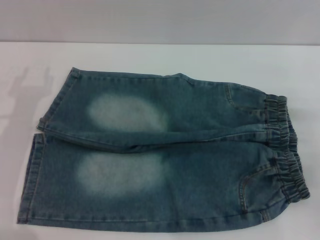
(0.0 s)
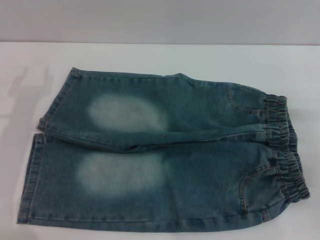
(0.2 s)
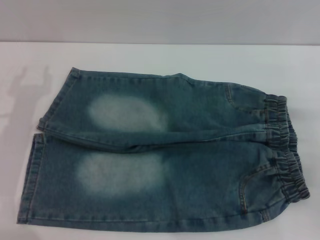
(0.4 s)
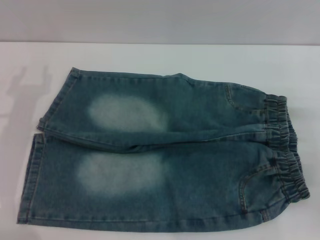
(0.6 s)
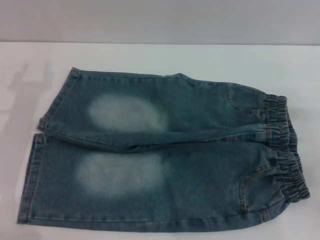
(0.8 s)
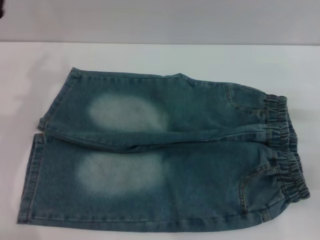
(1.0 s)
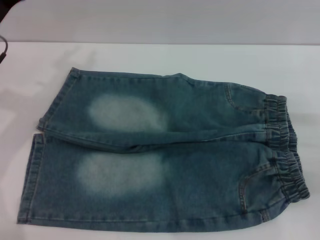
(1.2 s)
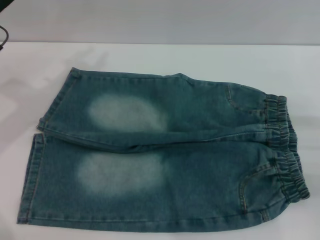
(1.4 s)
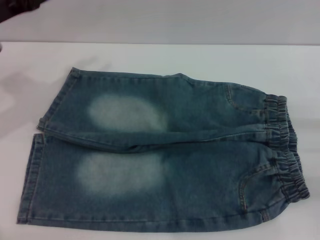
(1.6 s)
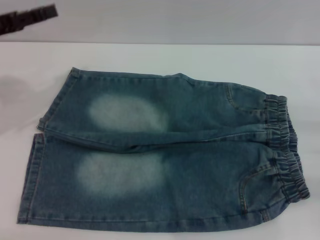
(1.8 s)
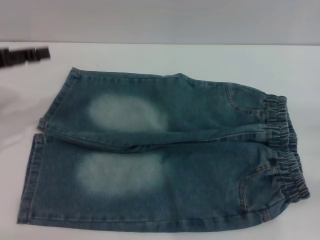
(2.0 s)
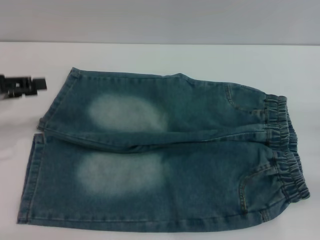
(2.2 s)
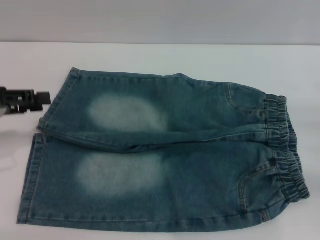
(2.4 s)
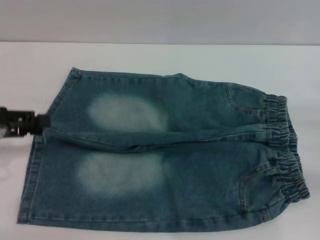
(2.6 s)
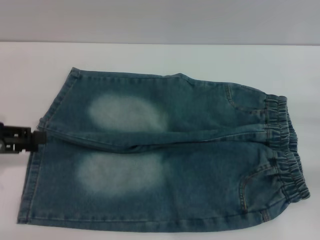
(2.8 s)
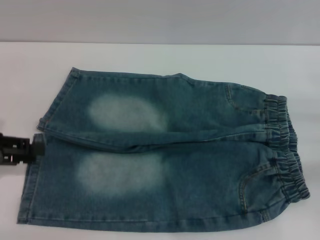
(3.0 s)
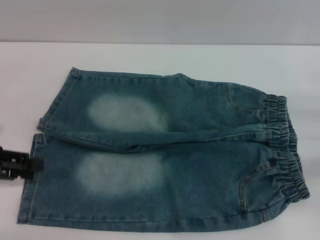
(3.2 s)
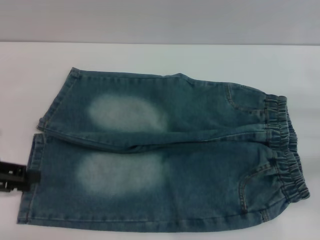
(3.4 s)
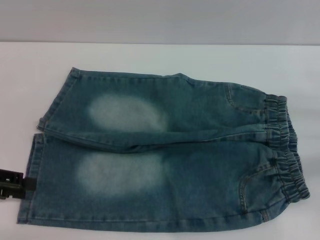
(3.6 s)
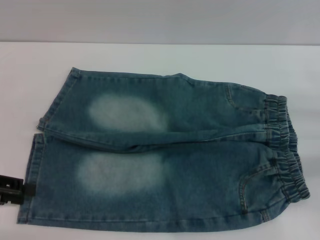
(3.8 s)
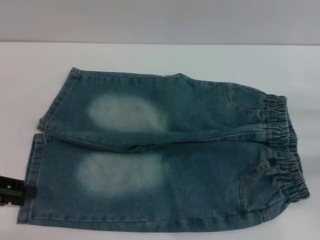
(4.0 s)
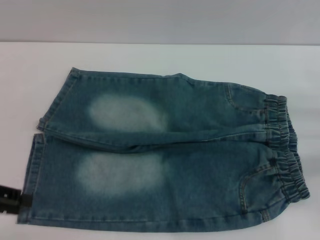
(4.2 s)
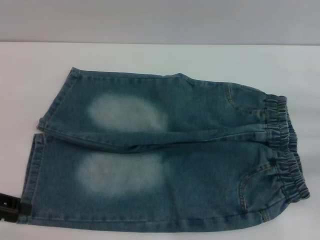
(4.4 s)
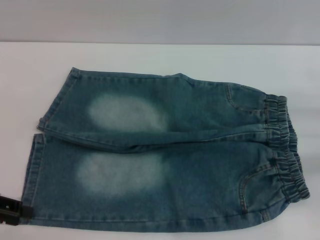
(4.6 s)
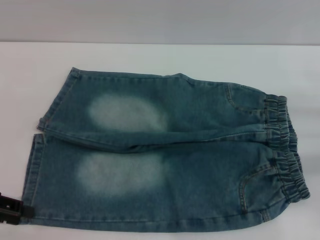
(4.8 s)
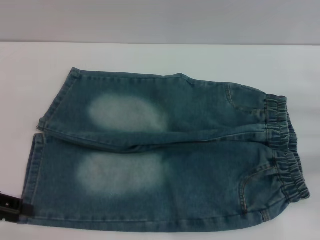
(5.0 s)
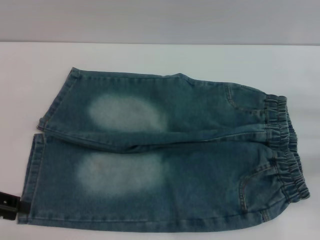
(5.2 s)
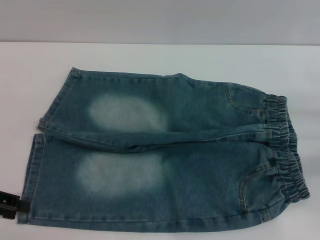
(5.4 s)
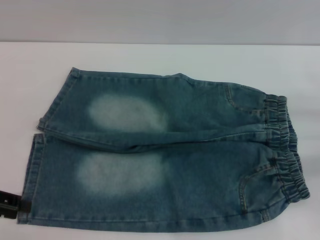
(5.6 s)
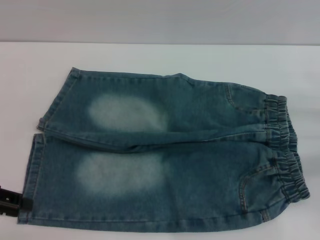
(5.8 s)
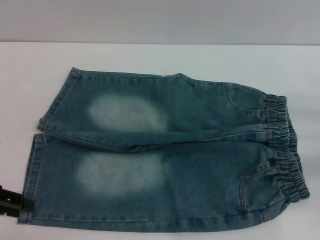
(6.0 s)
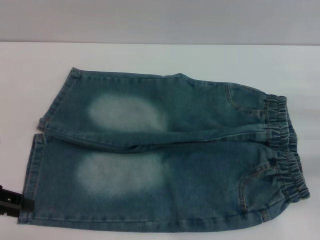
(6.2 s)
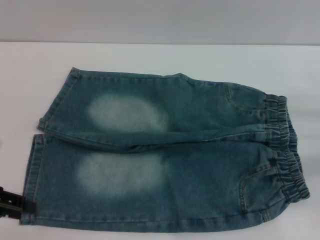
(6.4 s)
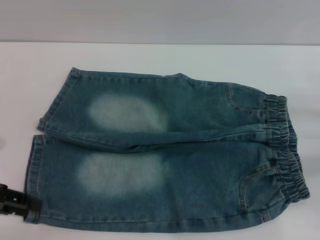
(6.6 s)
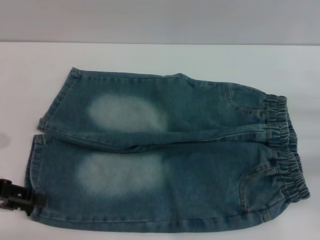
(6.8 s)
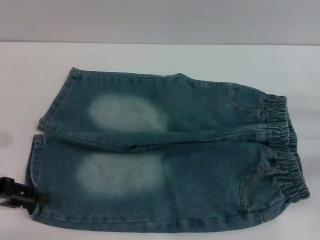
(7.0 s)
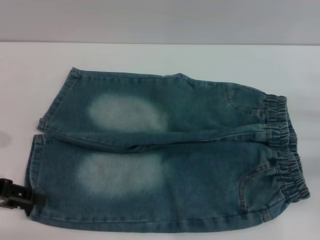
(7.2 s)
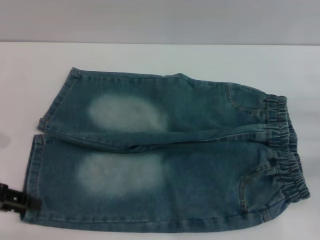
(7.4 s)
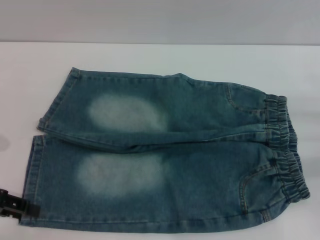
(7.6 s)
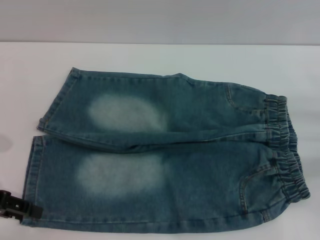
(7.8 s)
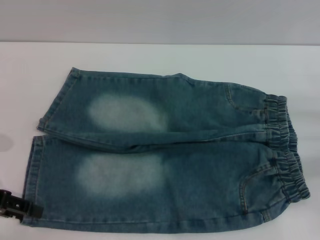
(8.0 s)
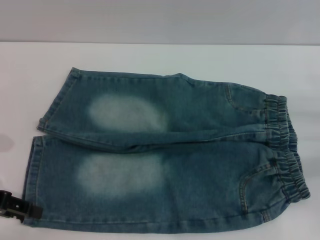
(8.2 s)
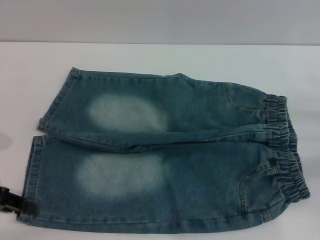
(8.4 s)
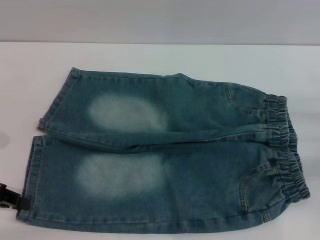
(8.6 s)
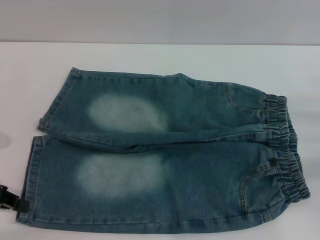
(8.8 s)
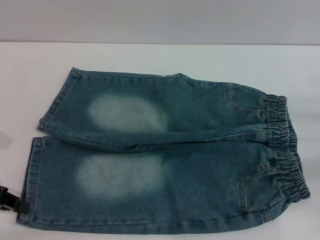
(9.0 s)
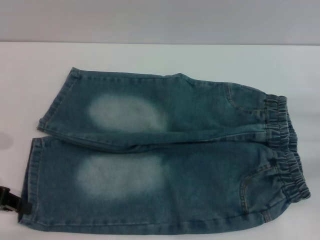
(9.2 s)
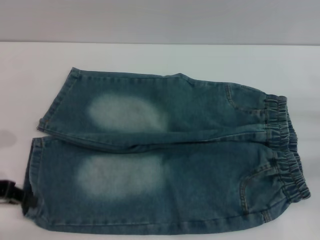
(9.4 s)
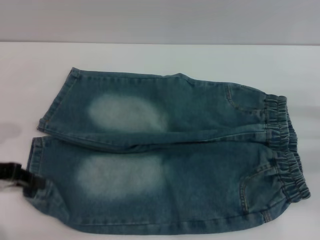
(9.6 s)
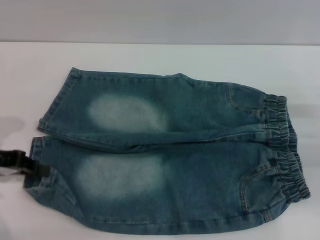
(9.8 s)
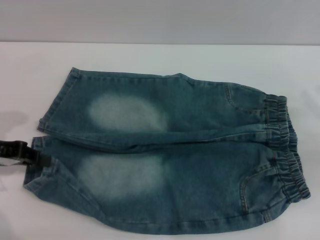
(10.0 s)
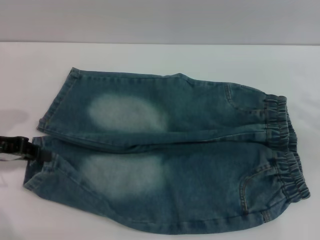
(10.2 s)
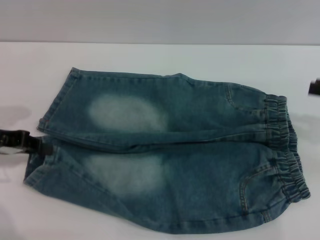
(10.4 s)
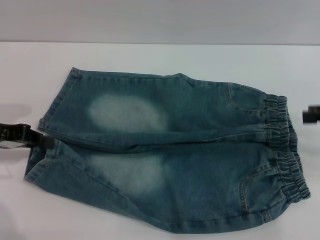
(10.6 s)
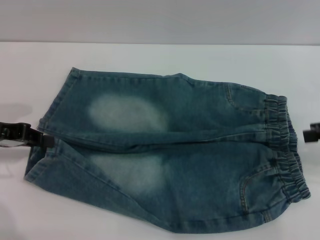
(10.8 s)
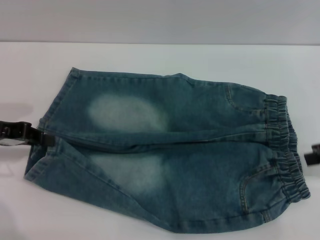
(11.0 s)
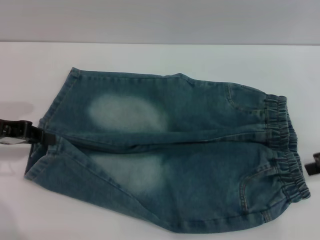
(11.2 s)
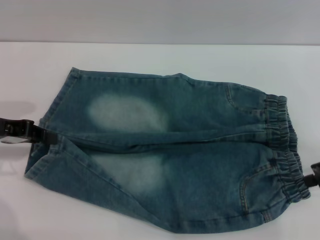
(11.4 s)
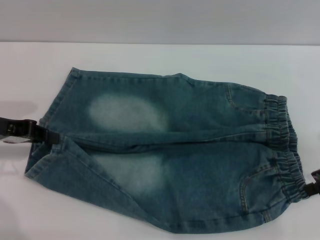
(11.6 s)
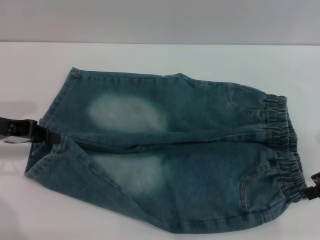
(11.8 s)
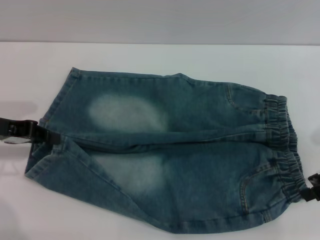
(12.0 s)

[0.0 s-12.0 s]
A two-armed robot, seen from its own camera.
0.0 to 1.6 s: The left gripper goes approximately 10 cm upward and forward.
1.6 to 3.0 s: The left gripper shifts some 10 cm backward and to the left.
3.0 to 4.4 s: There are only small adjustments of the grippers.
4.4 to 6.0 s: Neither gripper changes place.
6.0 to 7.6 s: The grippers stay close to where they were, moving slightly.
7.6 to 9.0 s: The left gripper closes up.
9.0 to 10.4 s: The right gripper shifts roughly 10 cm upward, while the left gripper shifts by roughly 5 cm.
10.4 to 12.0 s: The right gripper ends up roughly 5 cm from where it was.

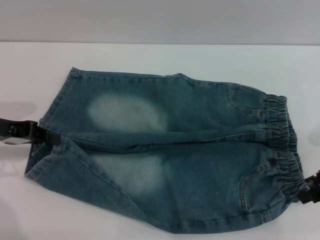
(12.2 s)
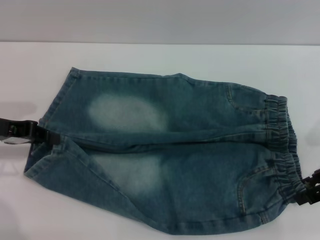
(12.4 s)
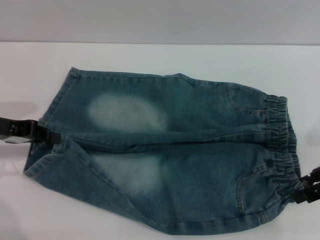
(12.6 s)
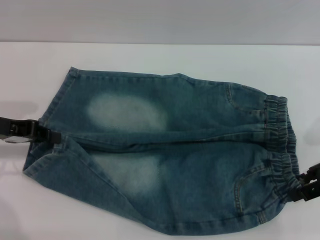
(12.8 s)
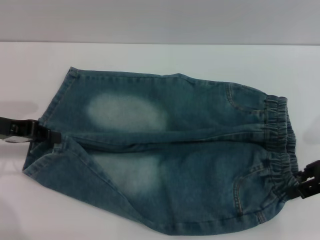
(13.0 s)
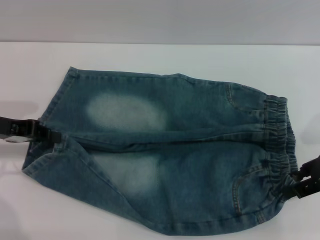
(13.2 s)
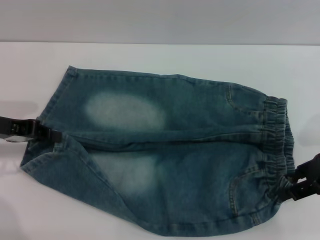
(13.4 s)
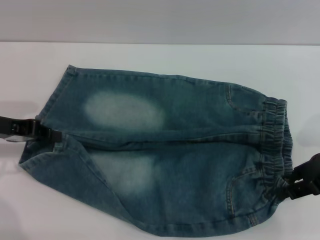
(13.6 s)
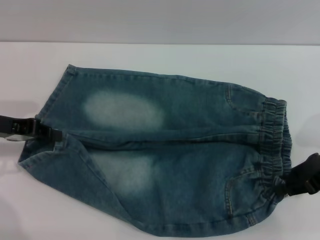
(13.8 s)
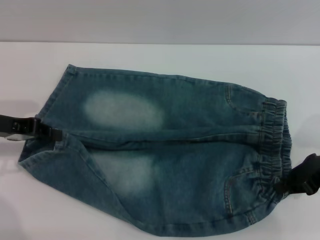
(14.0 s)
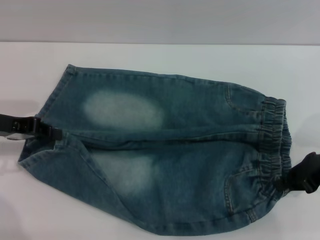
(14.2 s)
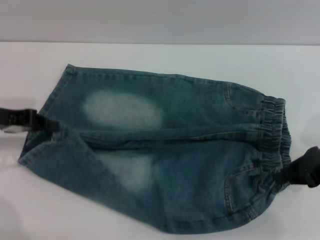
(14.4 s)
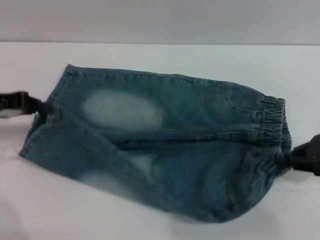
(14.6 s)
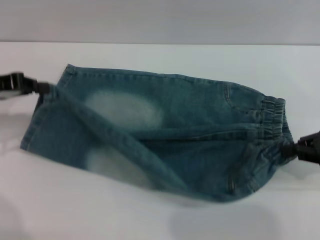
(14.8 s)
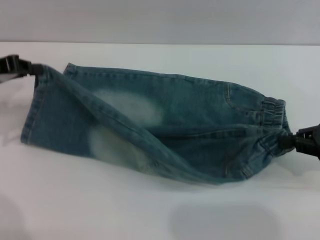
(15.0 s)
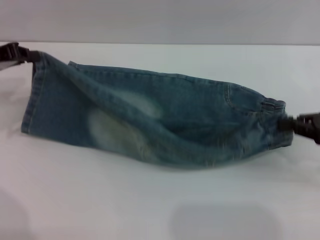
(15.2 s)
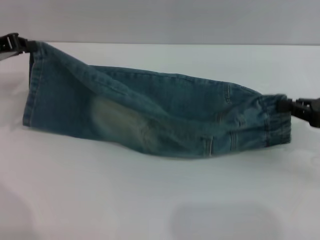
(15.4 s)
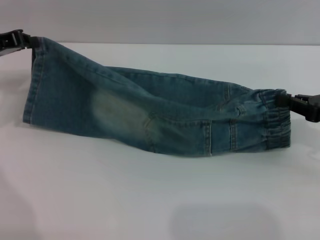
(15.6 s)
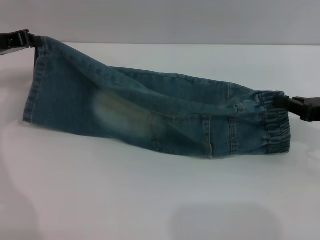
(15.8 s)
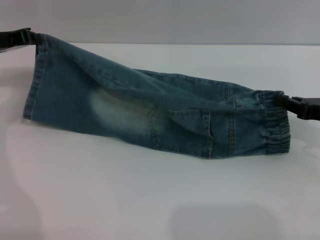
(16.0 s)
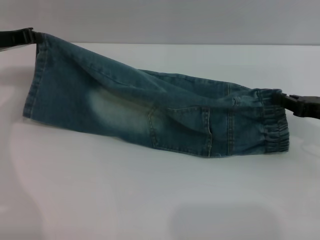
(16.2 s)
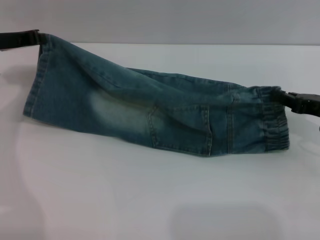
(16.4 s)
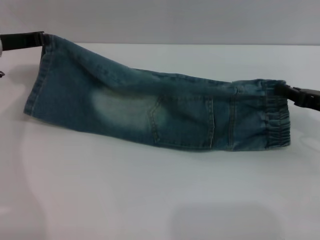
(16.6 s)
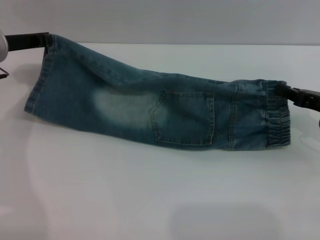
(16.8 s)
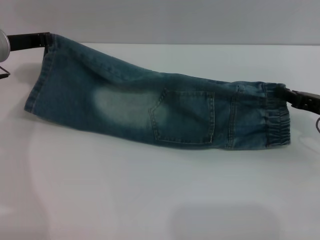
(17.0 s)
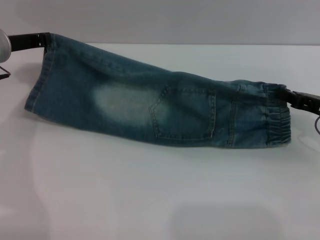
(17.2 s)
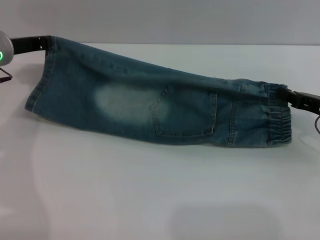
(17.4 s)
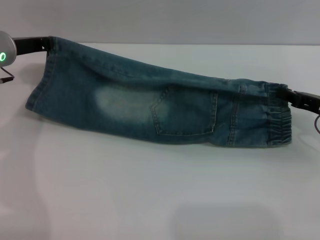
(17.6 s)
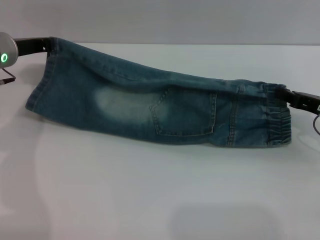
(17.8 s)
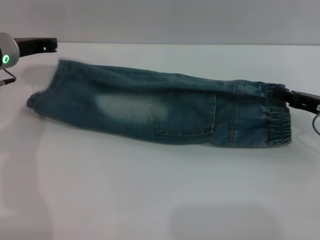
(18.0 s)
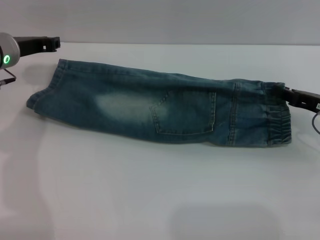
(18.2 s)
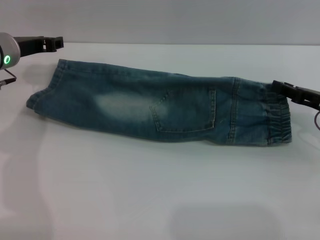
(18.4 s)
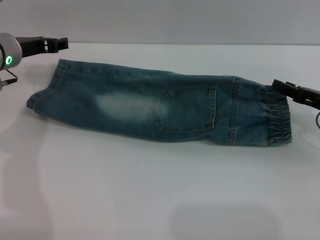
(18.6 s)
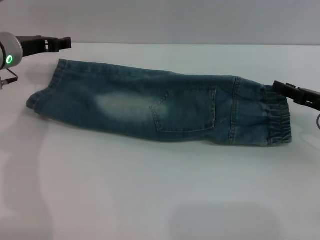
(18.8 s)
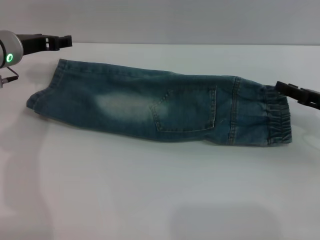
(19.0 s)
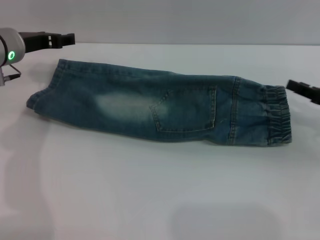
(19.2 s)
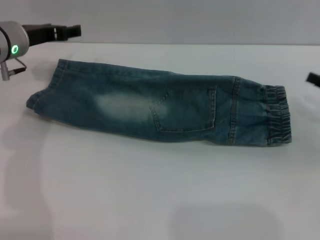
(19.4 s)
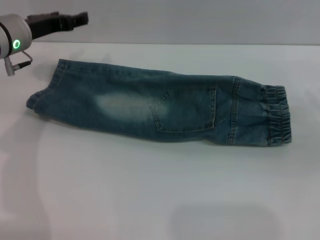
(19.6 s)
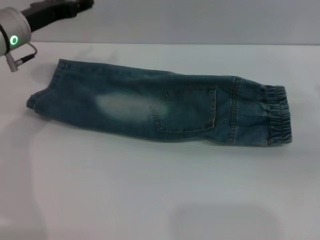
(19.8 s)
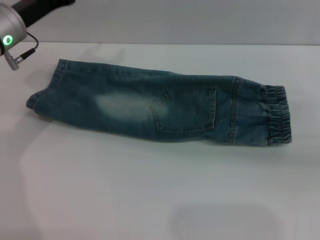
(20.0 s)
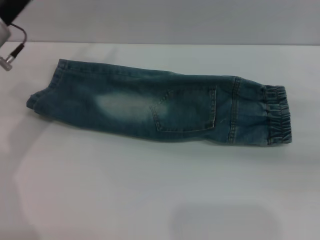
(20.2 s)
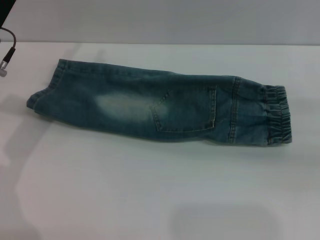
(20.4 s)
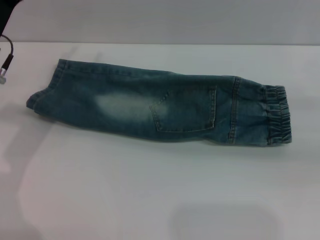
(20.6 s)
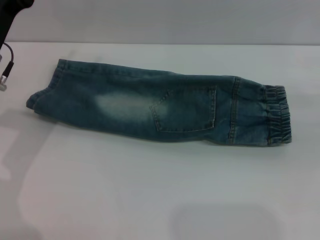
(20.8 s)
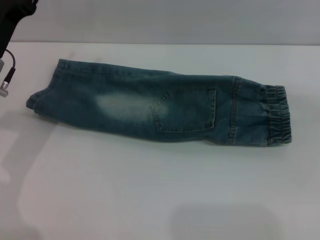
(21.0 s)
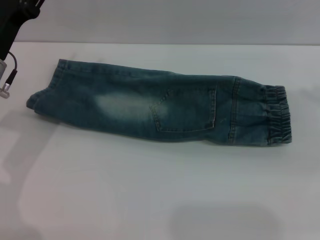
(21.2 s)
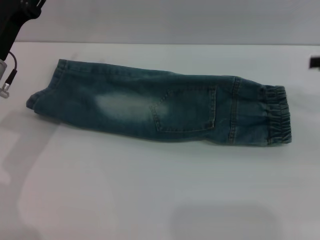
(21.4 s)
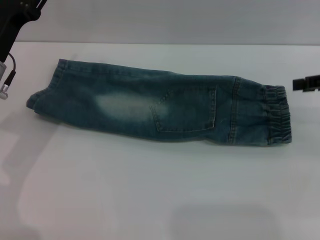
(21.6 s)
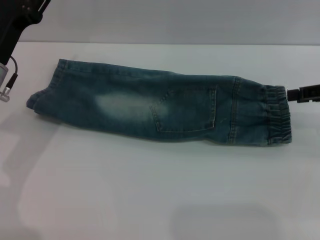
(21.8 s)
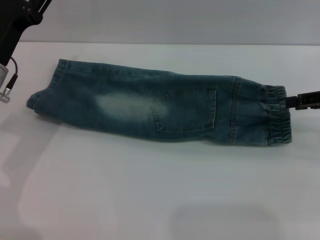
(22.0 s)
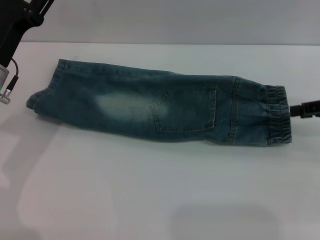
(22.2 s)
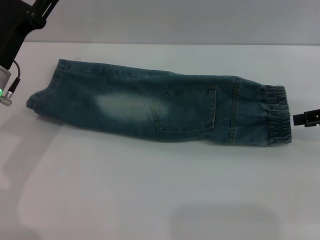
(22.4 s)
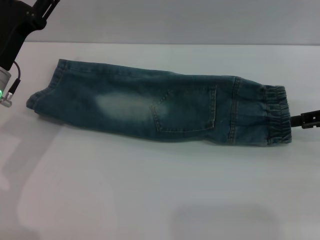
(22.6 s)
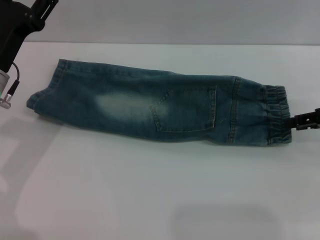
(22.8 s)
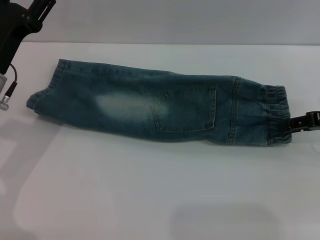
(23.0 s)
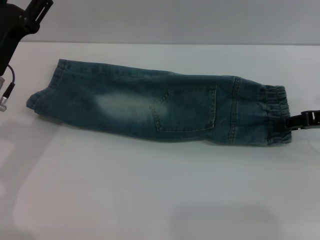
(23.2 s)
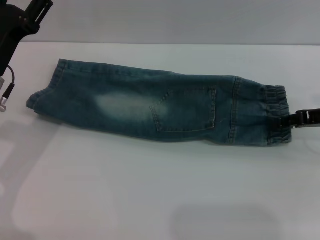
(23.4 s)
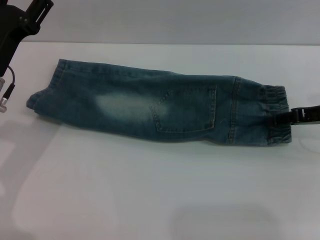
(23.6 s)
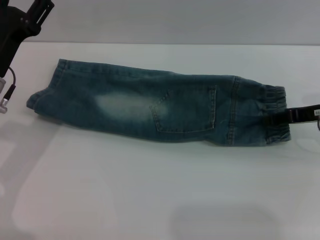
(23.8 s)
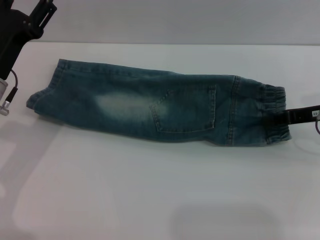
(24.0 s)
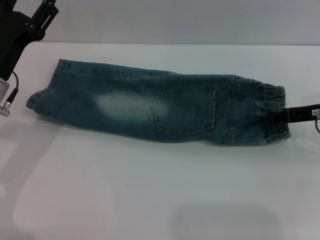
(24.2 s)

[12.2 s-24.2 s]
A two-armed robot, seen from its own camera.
Step, 12.2 to 19.0 s: Fold the bottom of the pants upward with both grippers.
12.2 to 13.8 s: The grippers make only small movements.
13.8 to 15.2 s: The right gripper closes. The left gripper changes place by about 5 cm.
15.2 to 16.6 s: The left gripper goes about 5 cm to the right; the right gripper ends up about 5 cm from where it was.
16.6 to 18.2 s: There are only small adjustments of the grippers.
18.2 to 19.8 s: The left gripper opens up. The right gripper travels to the right and upward by approximately 10 cm, and opens.
19.8 to 21.2 s: The left gripper shifts about 5 cm backward.
21.2 to 22.6 s: The right gripper heads downward, covering some 5 cm.
22.6 to 24.2 s: The right gripper moves to the left, about 5 cm, and closes.
